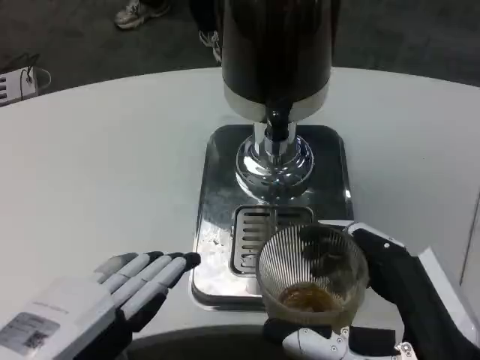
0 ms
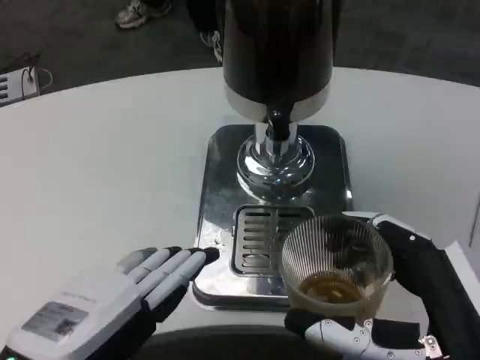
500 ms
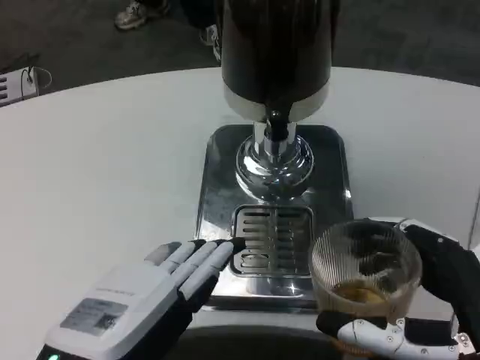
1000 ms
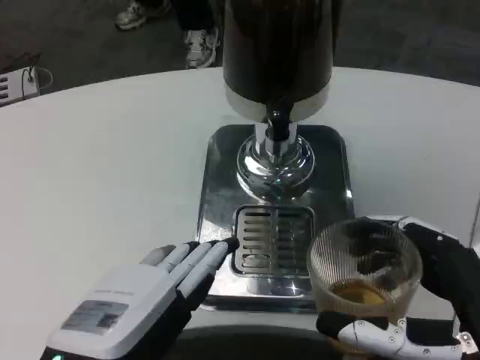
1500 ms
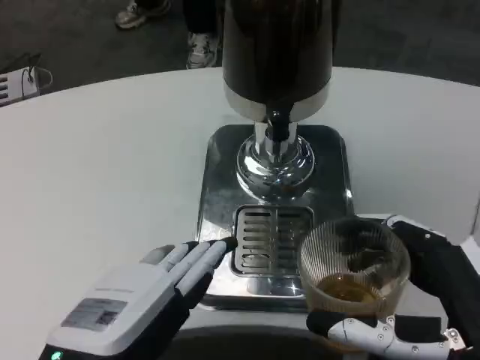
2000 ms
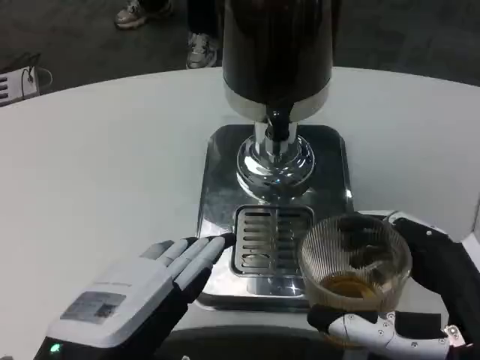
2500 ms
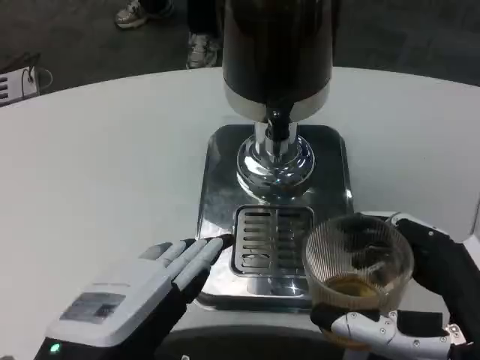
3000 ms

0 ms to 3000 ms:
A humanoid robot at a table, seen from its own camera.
Task of the whole recording: Grasp the cup under the faucet to collect the drink, then remove the cup.
0 ms to 1500 ms: The left hand travels to the right by some 5 cm.
1500 ms to 3000 ms: Both hands stay put.
